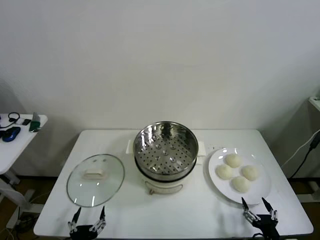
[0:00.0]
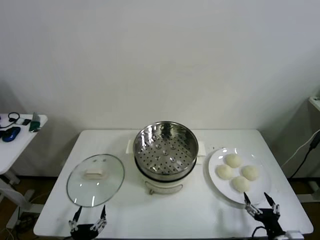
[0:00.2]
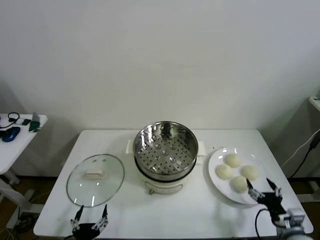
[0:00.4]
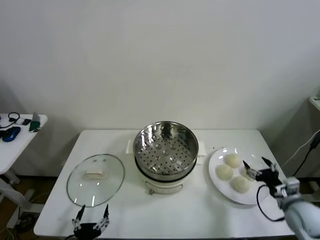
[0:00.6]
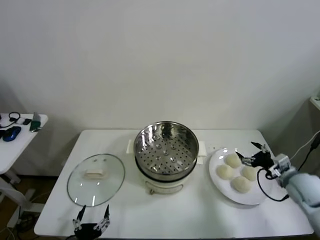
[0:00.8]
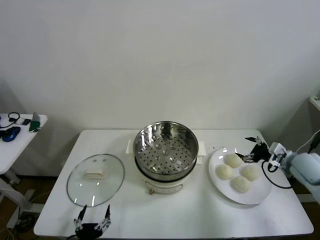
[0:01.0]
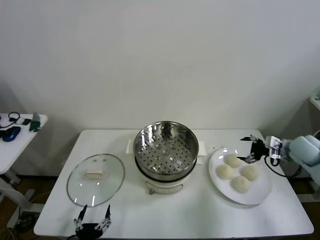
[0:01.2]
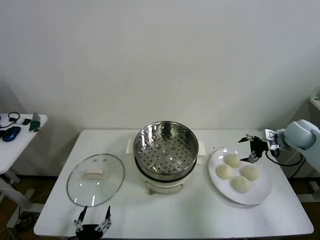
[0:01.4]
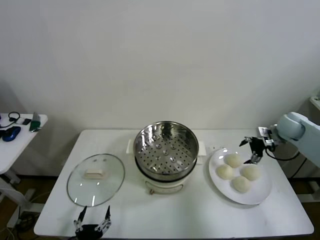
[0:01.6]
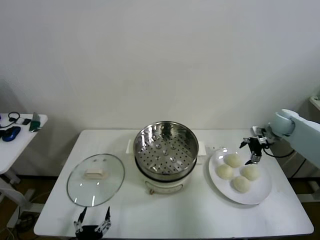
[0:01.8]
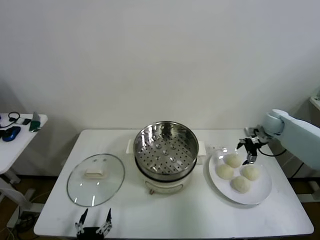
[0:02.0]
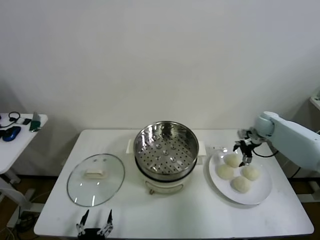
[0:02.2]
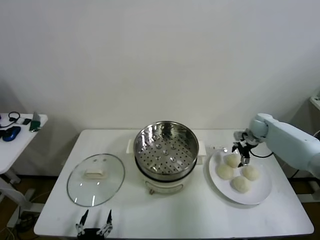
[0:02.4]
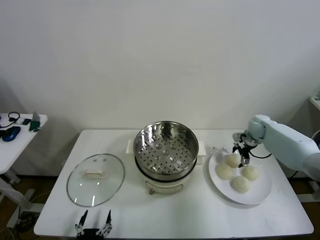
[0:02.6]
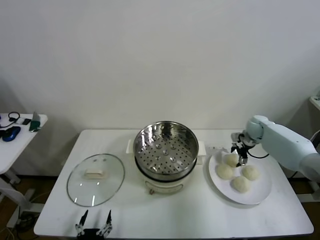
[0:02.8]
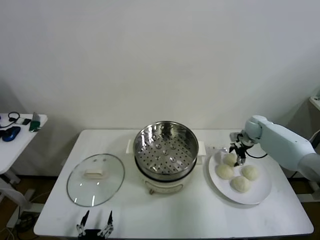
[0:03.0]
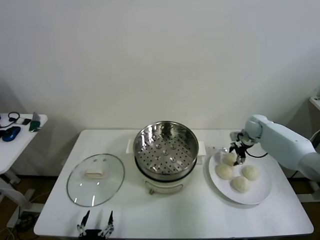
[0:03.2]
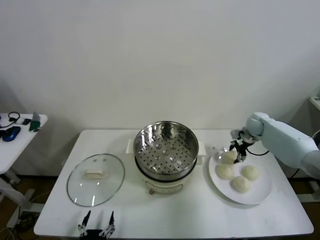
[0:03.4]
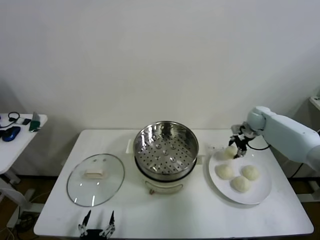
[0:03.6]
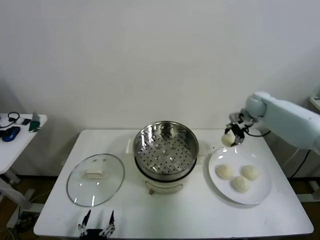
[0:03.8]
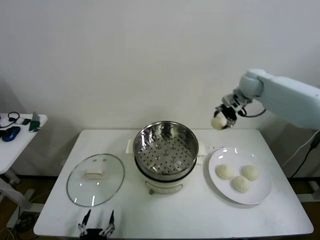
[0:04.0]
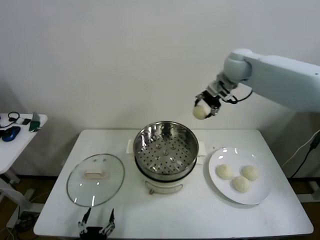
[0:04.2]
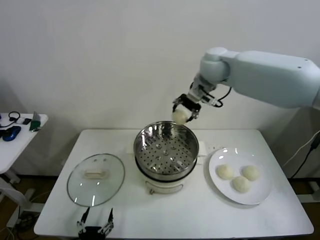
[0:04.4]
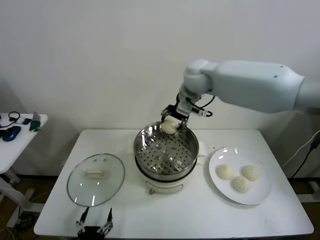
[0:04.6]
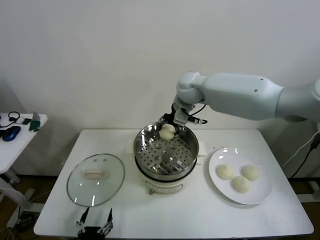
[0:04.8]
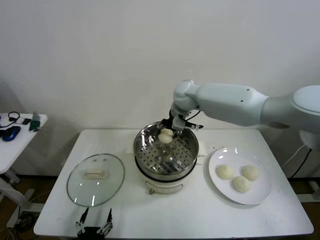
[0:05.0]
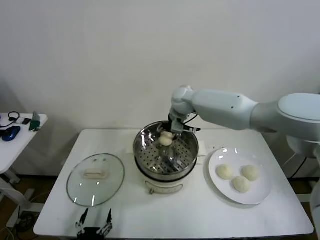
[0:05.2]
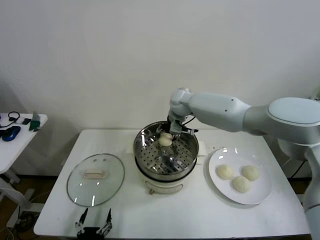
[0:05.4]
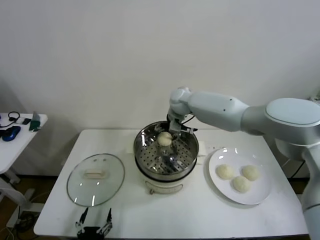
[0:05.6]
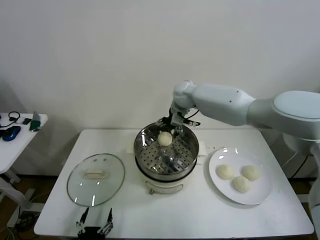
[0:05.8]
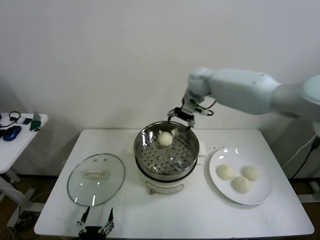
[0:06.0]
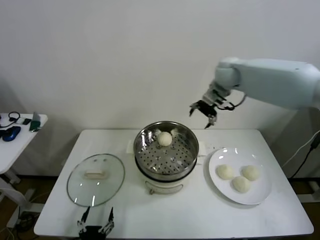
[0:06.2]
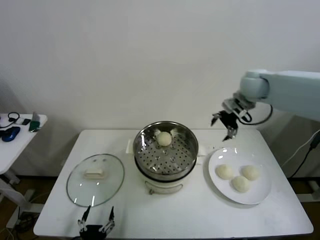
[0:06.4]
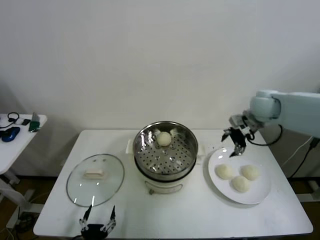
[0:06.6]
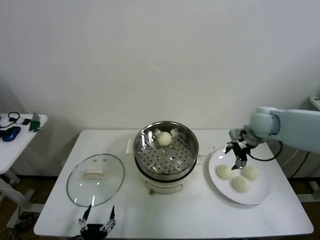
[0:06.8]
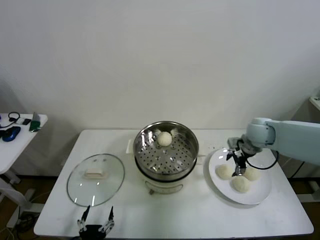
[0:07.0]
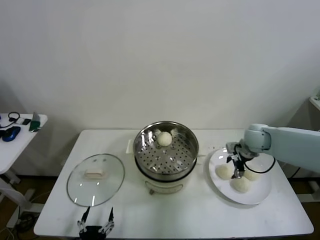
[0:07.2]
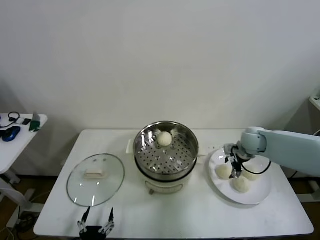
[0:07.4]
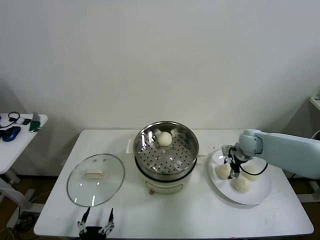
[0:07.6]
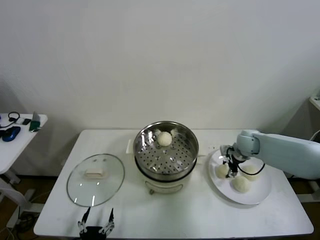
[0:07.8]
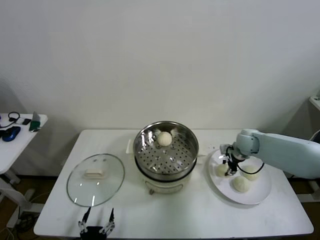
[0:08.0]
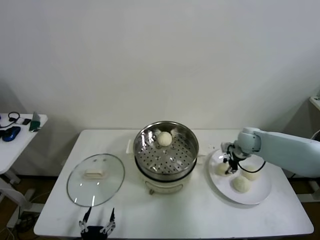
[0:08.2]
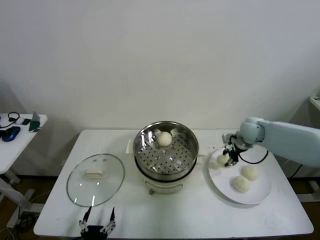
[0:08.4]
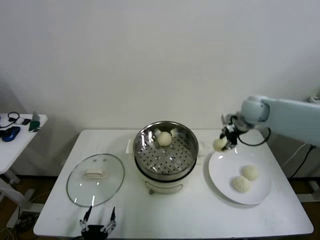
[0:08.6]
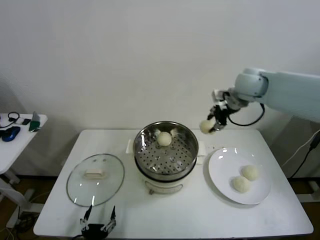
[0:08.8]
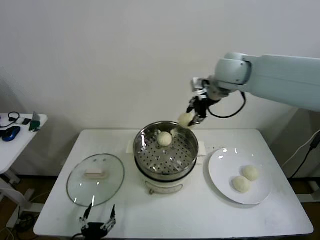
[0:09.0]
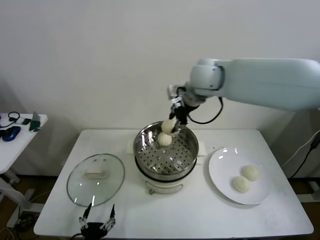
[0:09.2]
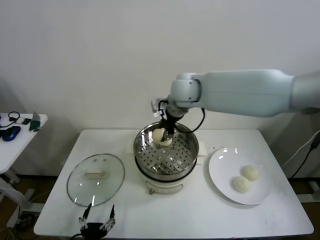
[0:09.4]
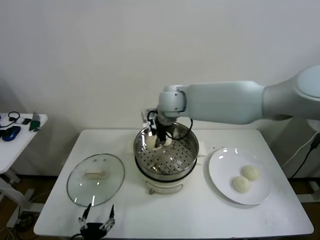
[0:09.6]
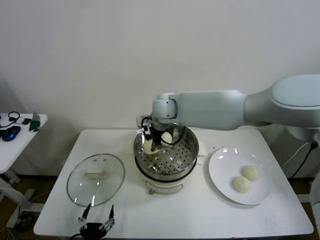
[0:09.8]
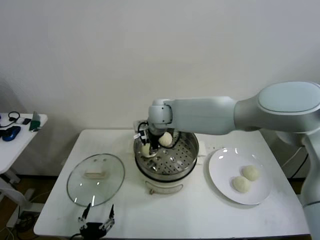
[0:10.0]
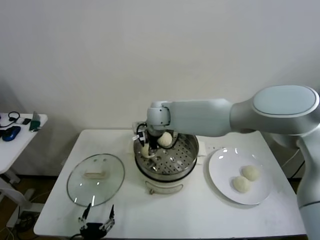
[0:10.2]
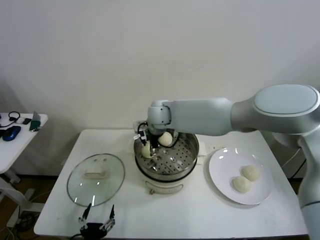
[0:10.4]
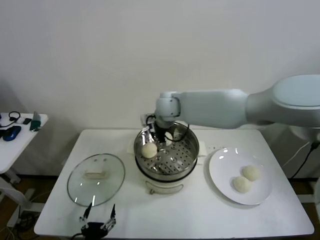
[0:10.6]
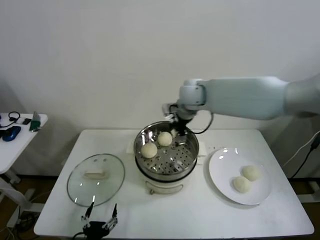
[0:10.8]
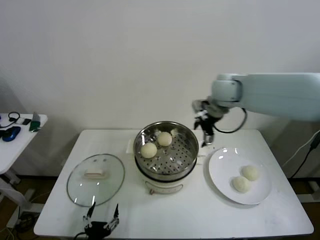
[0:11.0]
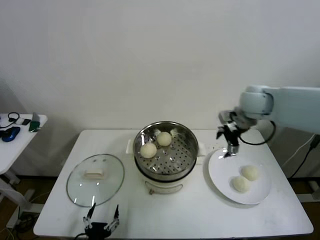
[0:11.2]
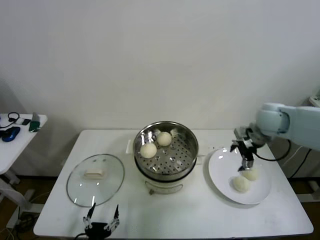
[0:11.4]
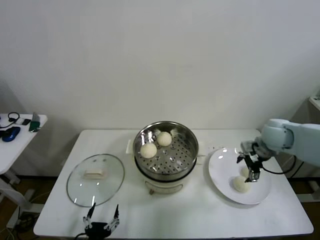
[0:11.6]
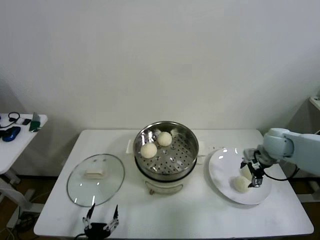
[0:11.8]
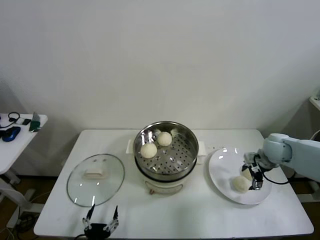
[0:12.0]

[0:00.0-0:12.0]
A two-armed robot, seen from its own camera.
Step, 0:00.0 to 0:03.2: Grasp the baozi in the plate with right gripper.
Step, 0:03.4 to 0:05.4: Place the baozi on the steamer with right gripper.
Step, 0:05.6 to 0:08.0: Grasp the baozi in the plate with right gripper.
Step, 0:08.2 to 0:10.2: Place the baozi on the steamer with right gripper.
0:01.6 to 0:03.0: The right gripper is displaced downward, forward and to the left by about 10 cm.
0:03.0 to 0:04.4: The right gripper heads upward and to the left, covering approximately 40 cm.
0:04.4 to 0:06.0: The right gripper moves to the right, approximately 5 cm, goes downward and returns, some 15 cm each way, and opens its fingers.
0:06.0 to 0:07.6: The right gripper is displaced downward, to the right and backward by some 30 cm.
0:07.6 to 0:09.0: The right gripper travels upward and to the left by approximately 35 cm, and closes its fingers.
0:09.0 to 0:10.4: The right gripper is displaced to the left and downward by roughly 20 cm, and opens its fingers.
0:10.4 to 0:12.0: The right gripper moves to the right, some 40 cm.

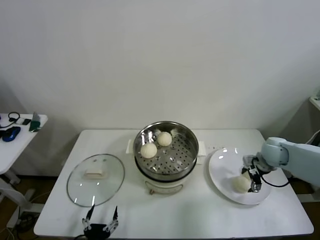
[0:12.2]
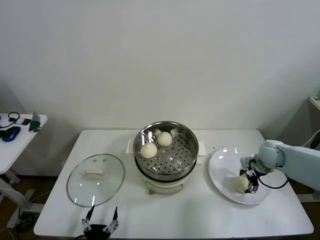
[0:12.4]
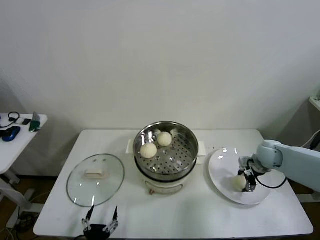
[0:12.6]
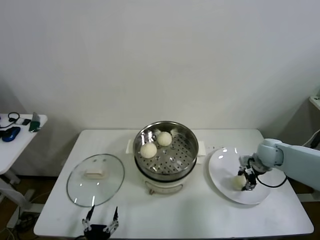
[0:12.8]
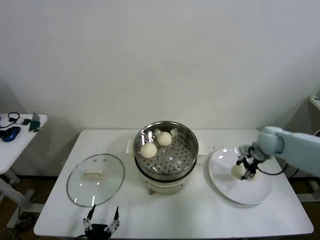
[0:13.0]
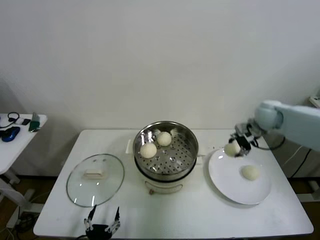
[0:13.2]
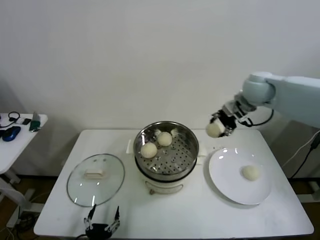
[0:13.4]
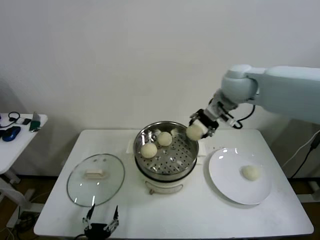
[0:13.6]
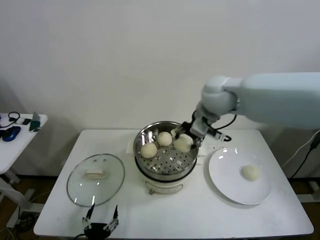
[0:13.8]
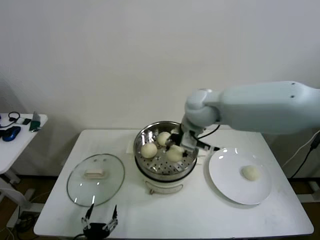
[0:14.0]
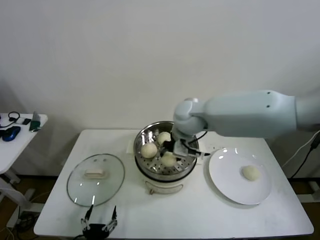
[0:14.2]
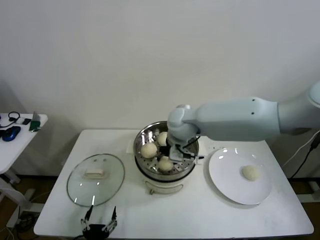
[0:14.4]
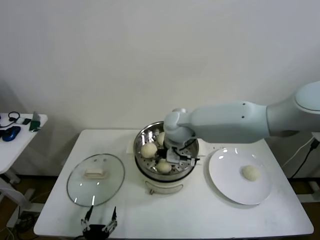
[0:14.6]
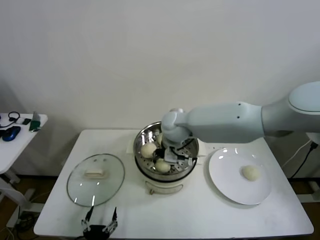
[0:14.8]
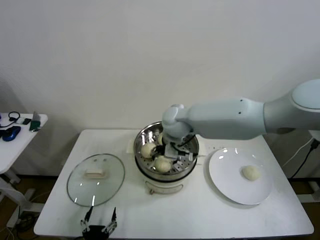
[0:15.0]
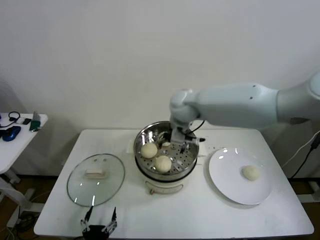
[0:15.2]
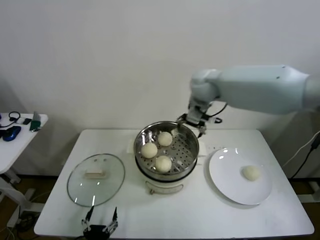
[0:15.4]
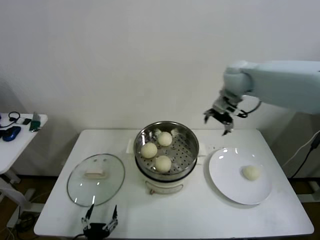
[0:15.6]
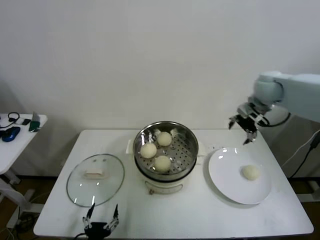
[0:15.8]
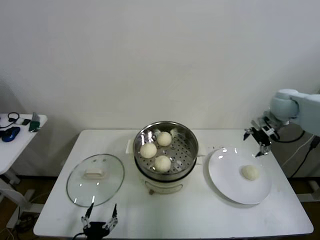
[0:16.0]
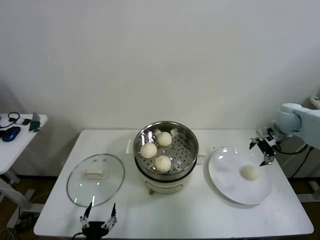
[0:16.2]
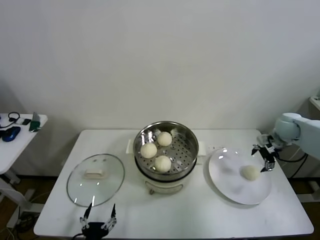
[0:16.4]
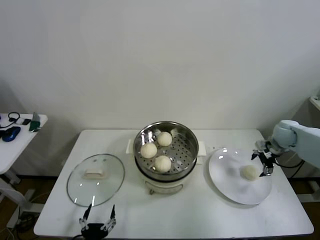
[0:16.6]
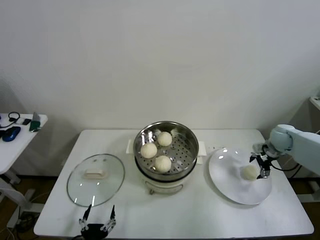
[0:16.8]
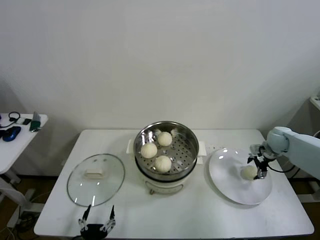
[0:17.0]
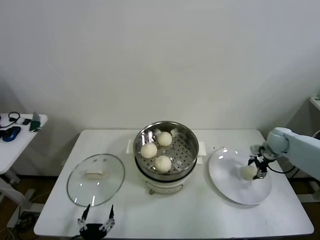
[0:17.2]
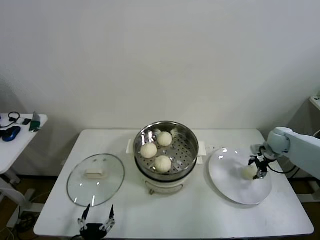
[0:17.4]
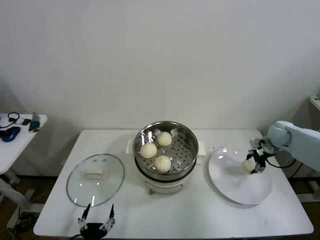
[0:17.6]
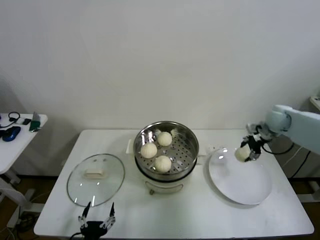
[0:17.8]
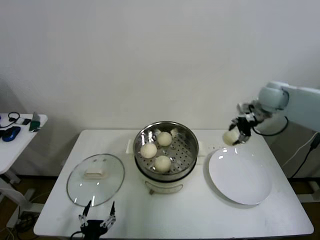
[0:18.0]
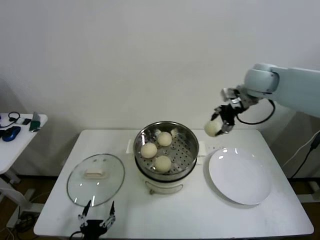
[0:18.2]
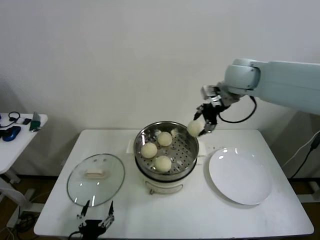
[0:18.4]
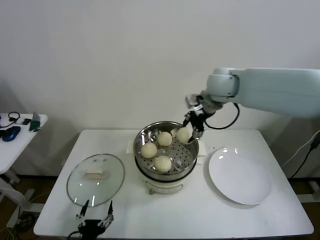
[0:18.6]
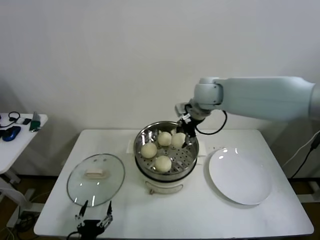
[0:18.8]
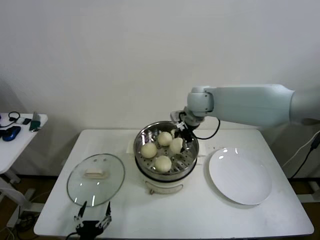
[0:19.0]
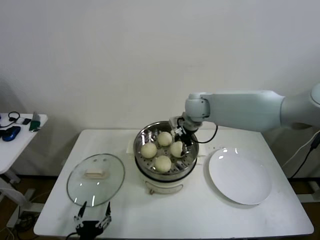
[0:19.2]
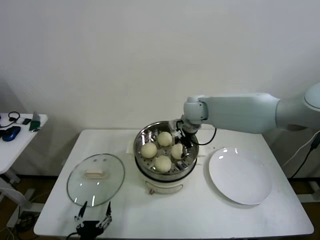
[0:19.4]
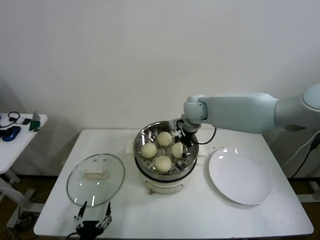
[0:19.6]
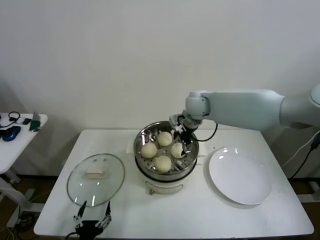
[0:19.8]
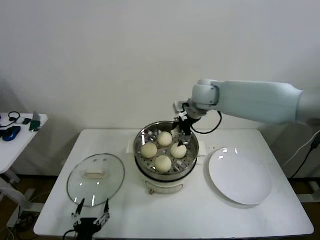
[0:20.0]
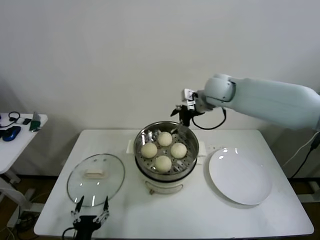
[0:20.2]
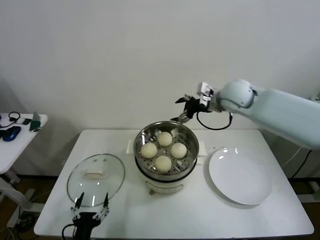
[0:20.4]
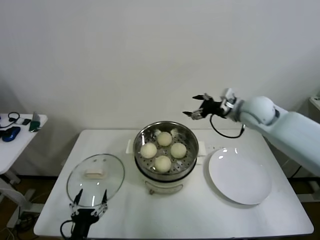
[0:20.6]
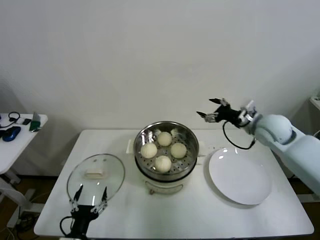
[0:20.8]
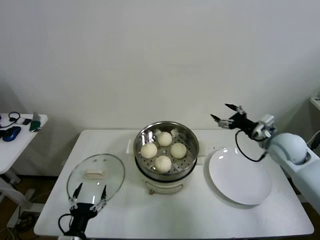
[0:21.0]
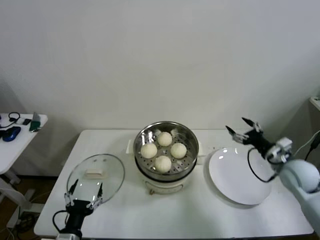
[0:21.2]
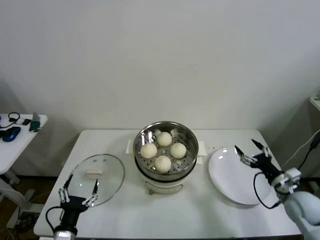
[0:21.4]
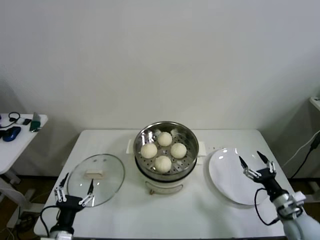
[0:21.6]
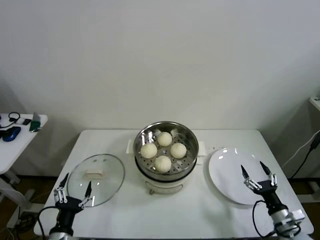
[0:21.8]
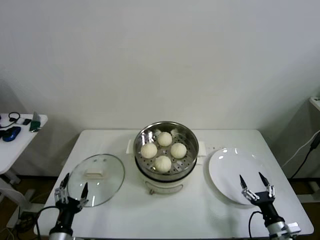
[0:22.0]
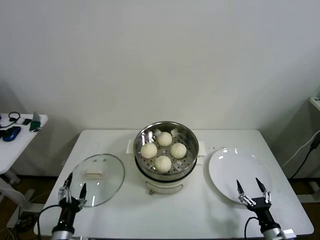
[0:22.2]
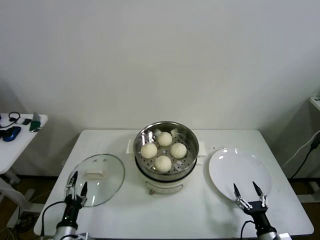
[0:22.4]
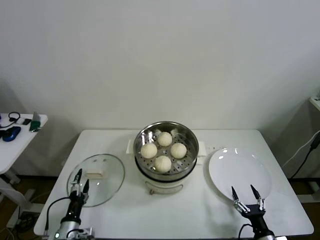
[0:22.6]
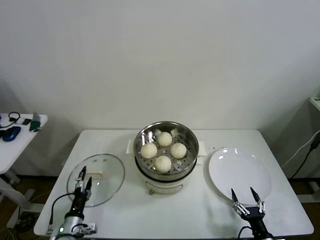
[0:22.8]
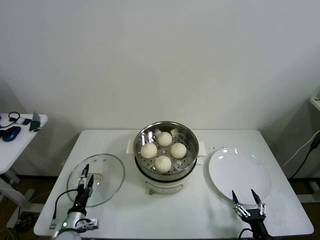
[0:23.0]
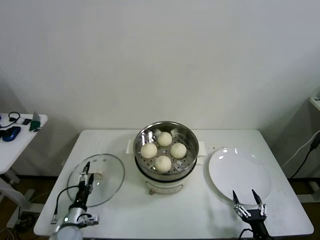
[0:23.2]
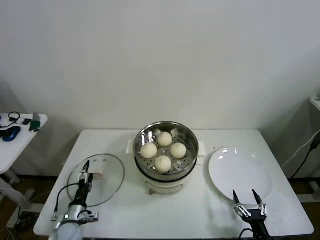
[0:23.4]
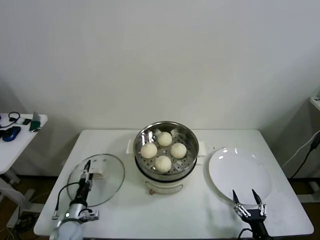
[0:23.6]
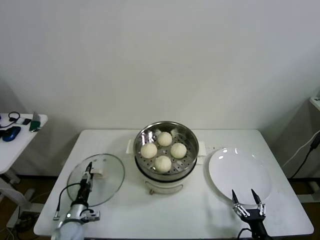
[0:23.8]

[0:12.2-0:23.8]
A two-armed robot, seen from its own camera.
Step, 0:12.8 to 0:14.8: Place the baozi on the steamer with right gripper.
Step, 0:15.2 to 0:17.2: Grasp the baozi in the plate with right gripper.
Step, 0:17.4 to 0:19.6: Place the baozi on the steamer with right gripper.
0:12.2 to 0:13.6: The right gripper goes roughly 35 cm upward and to the left, and closes its fingers.
0:13.6 to 0:15.0: The right gripper shifts approximately 20 cm to the left and downward, and opens up.
0:15.0 to 0:16.6: The right gripper travels to the right by about 40 cm.
0:16.6 to 0:18.0: The right gripper heads upward and to the left, covering approximately 20 cm, and closes up.
0:18.0 to 0:19.4: The right gripper shifts roughly 25 cm to the left.
0:19.4 to 0:21.0: The right gripper is displaced to the right and backward by some 30 cm, and opens. The left gripper ends up approximately 5 cm from where it was.
0:21.0 to 0:22.4: The left gripper shifts approximately 5 cm downward and to the left, while the right gripper is displaced downward and backward by some 40 cm.
0:22.4 to 0:23.8: The left gripper travels forward and downward by roughly 10 cm, and closes its fingers.
